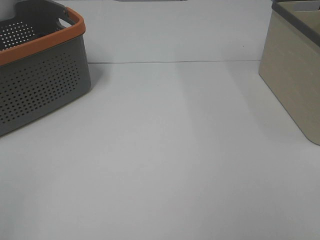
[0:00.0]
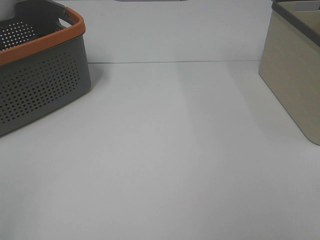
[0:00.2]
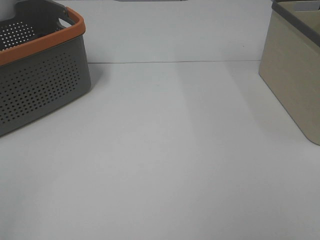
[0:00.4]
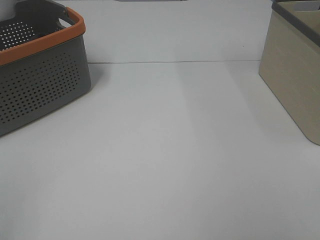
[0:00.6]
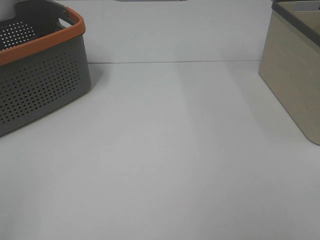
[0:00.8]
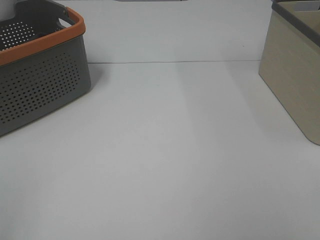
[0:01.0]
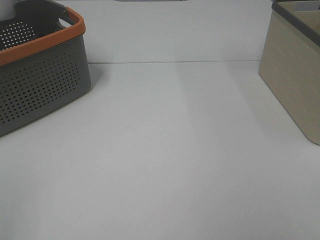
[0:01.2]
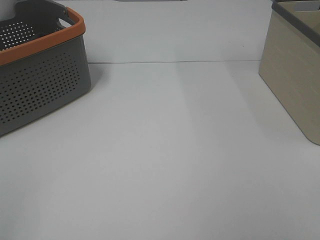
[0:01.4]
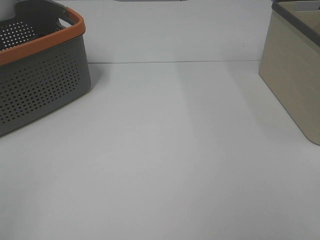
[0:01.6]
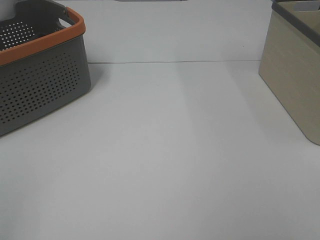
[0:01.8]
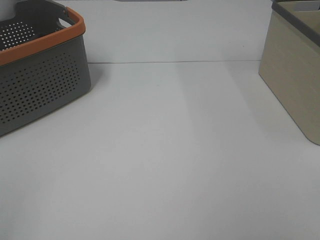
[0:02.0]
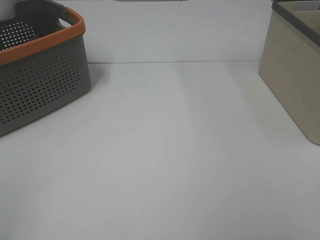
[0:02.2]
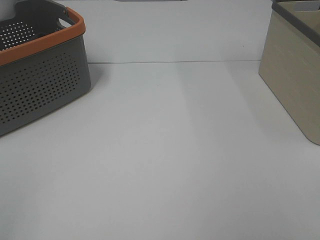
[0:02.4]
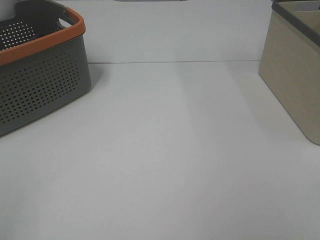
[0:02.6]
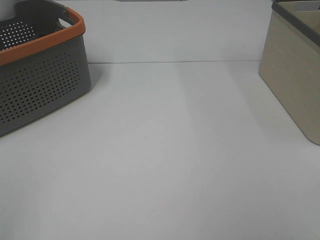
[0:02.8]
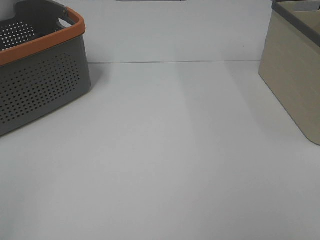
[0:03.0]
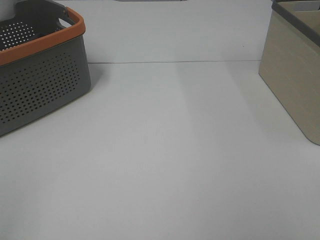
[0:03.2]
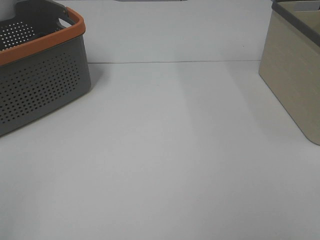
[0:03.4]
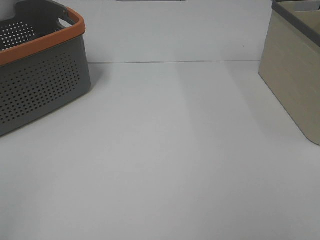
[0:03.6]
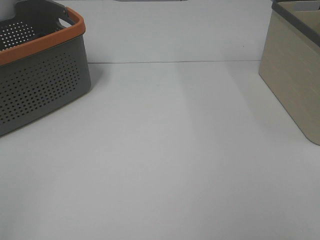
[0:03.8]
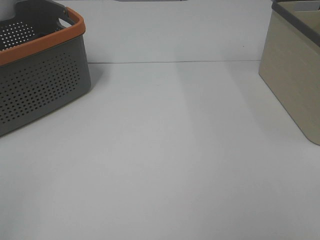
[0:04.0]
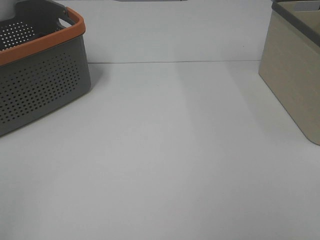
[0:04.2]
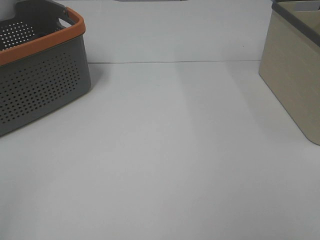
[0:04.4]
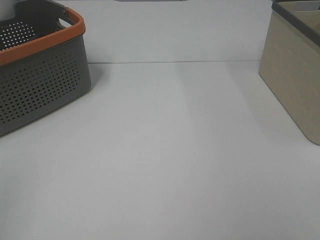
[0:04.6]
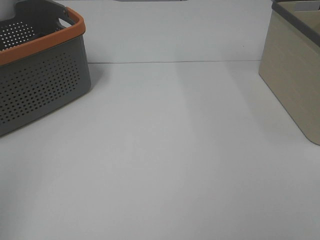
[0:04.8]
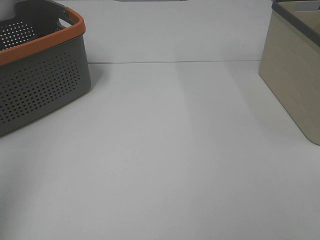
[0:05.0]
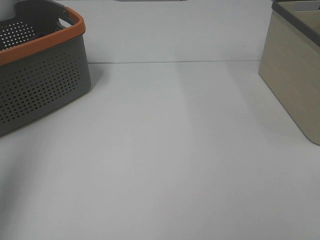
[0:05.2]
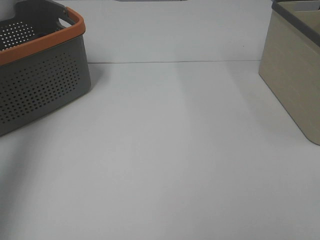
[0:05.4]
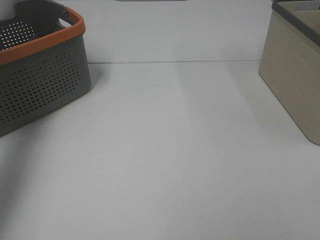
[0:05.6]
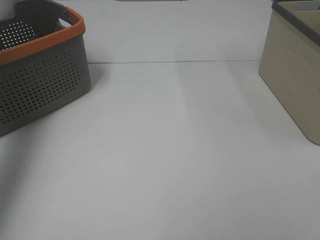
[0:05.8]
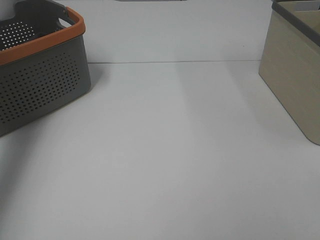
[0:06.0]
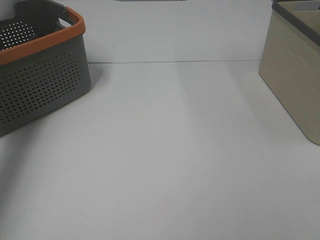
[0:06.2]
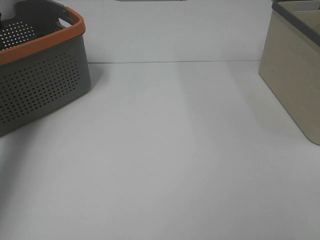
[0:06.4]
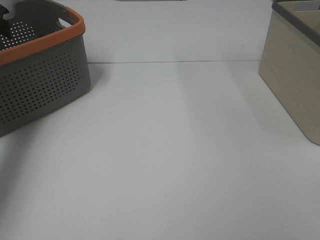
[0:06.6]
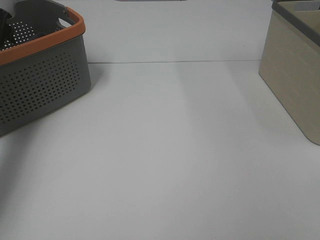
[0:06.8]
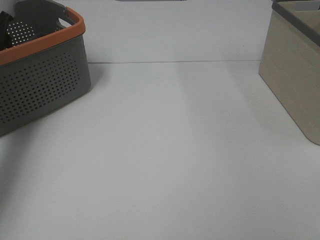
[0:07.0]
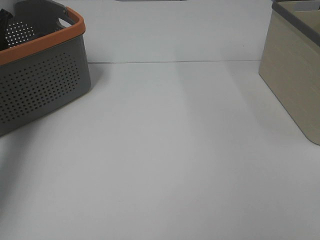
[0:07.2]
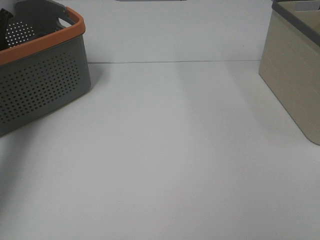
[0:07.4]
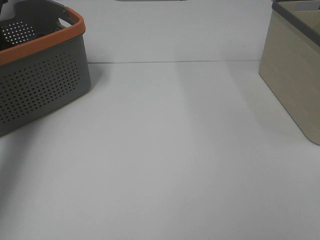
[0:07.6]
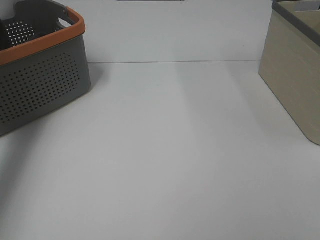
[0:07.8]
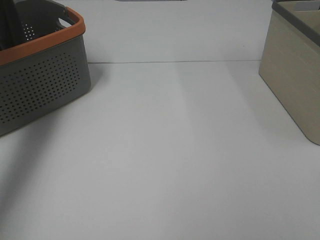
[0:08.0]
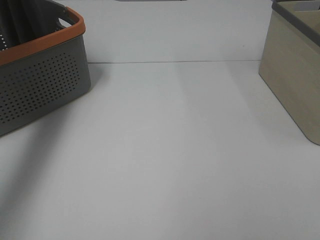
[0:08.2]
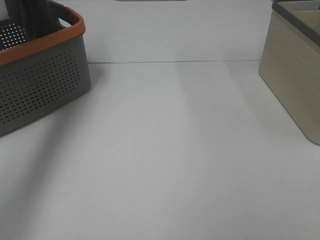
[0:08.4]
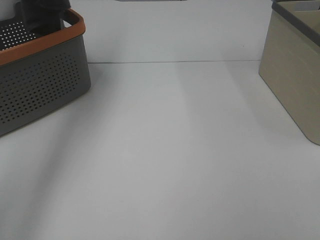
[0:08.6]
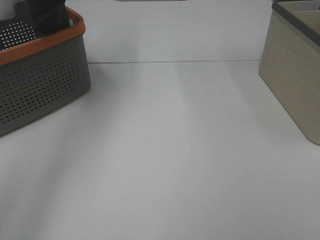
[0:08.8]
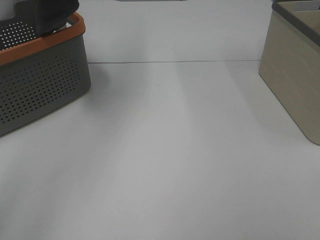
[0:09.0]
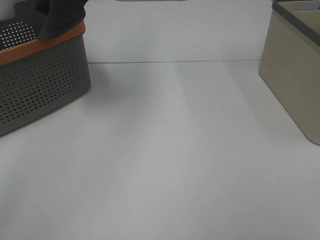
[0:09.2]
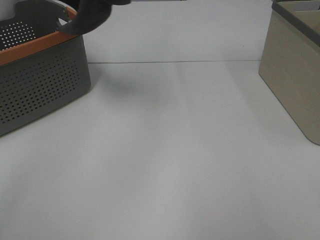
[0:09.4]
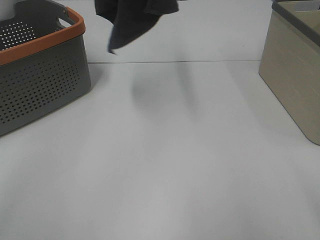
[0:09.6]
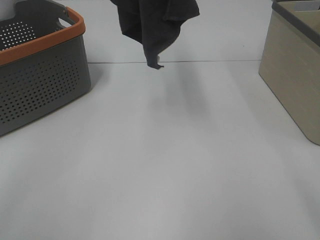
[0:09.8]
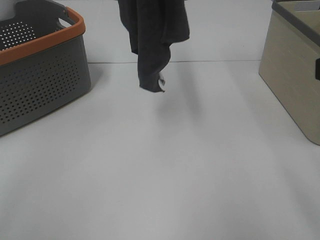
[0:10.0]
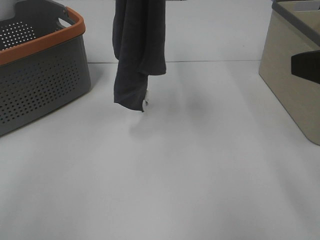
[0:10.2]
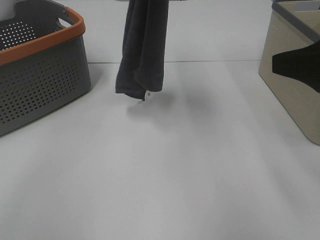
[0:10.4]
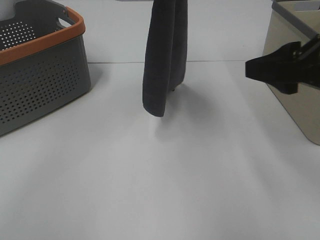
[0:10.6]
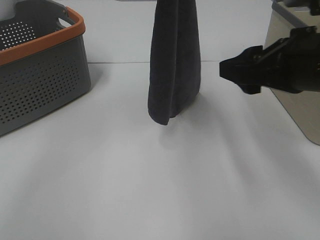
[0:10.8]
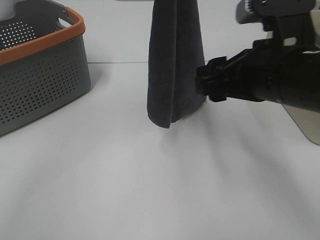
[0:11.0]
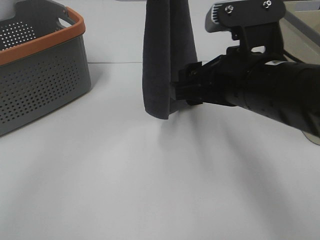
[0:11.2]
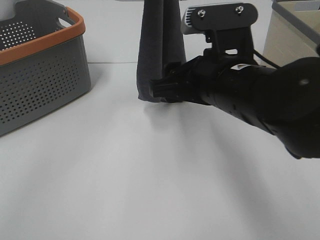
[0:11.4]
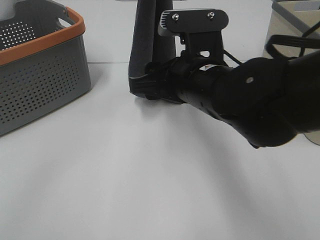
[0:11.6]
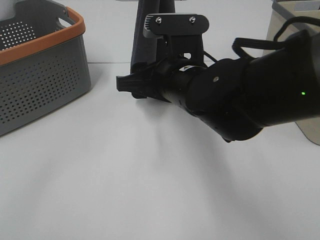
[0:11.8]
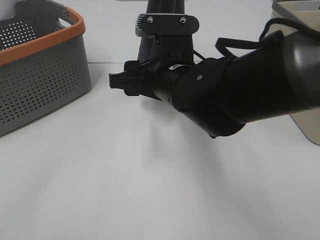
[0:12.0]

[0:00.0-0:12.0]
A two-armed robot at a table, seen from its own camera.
Task of the whole recording: Remove the towel and place it.
0:00.0 to 0:03.0: Both grippers stay about where they are.
0:04.4 to 0:06.0: The left gripper heads forward, covering roughly 40 cm.
0:07.6 to 0:09.0: The left gripper heads upward and to the right, covering approximately 40 cm.
0:09.0 to 0:10.4: The right gripper is displaced forward by some 20 cm. Meanwhile the left gripper shifts roughly 15 cm to the right and downward.
0:10.4 to 0:12.0: The left gripper moves roughly 5 cm, while the right gripper travels to the left, downward and forward by roughly 25 cm.

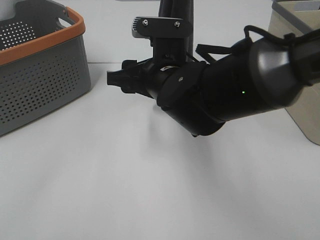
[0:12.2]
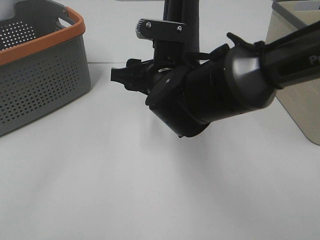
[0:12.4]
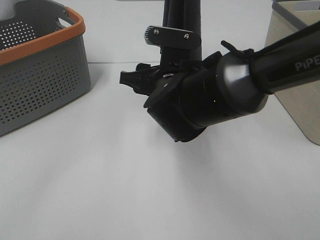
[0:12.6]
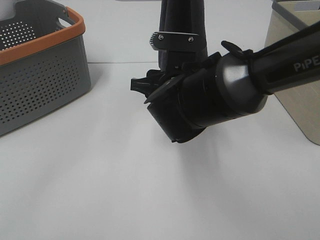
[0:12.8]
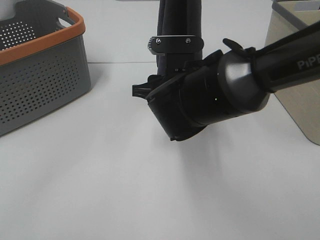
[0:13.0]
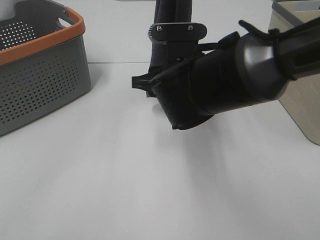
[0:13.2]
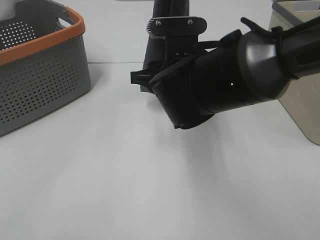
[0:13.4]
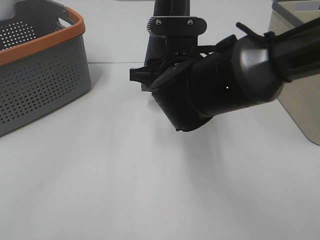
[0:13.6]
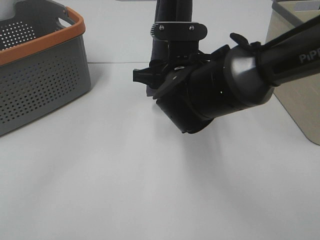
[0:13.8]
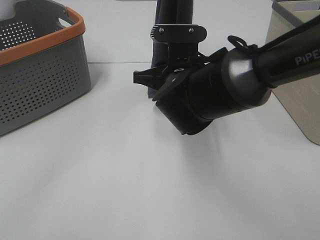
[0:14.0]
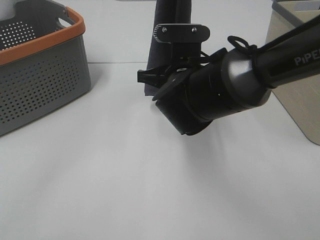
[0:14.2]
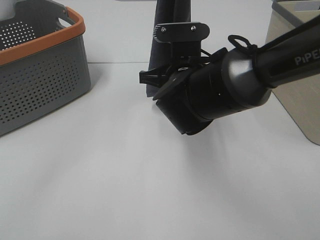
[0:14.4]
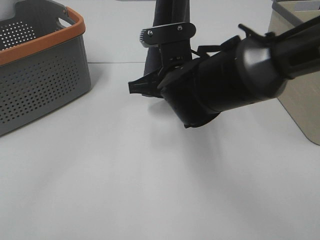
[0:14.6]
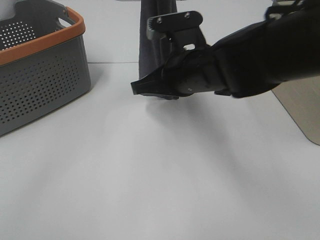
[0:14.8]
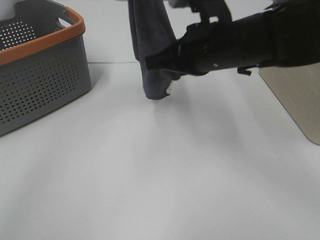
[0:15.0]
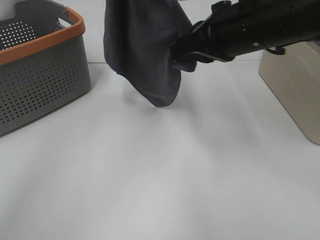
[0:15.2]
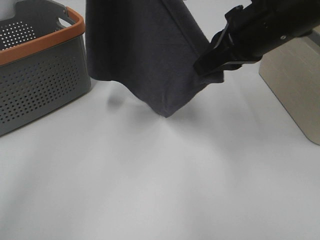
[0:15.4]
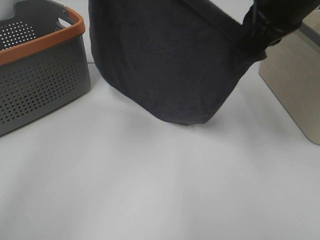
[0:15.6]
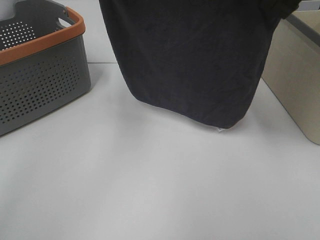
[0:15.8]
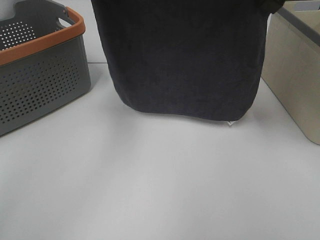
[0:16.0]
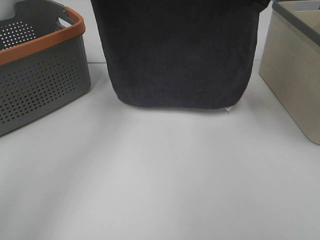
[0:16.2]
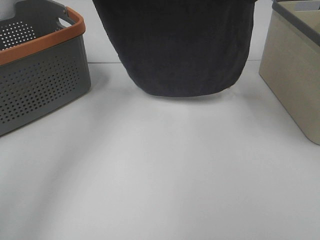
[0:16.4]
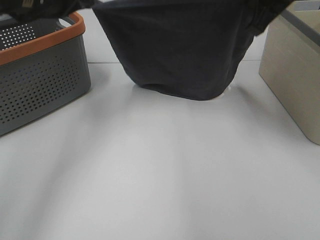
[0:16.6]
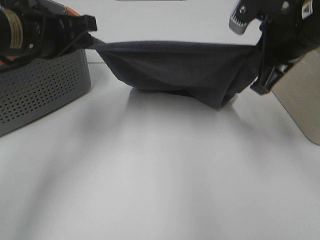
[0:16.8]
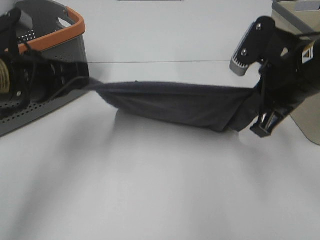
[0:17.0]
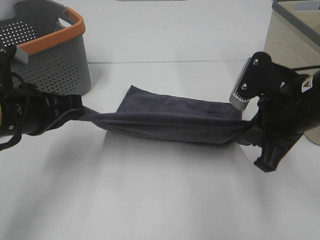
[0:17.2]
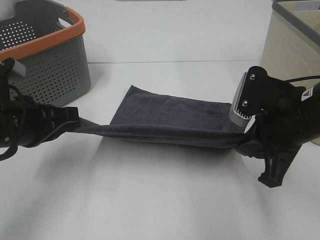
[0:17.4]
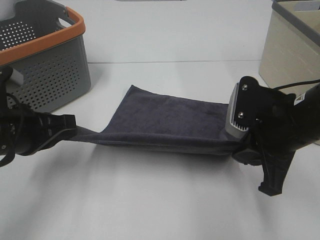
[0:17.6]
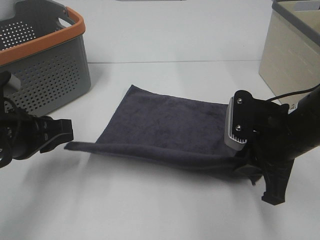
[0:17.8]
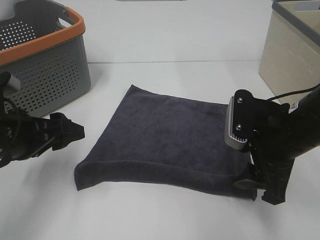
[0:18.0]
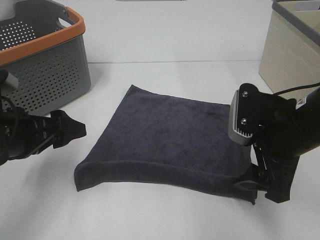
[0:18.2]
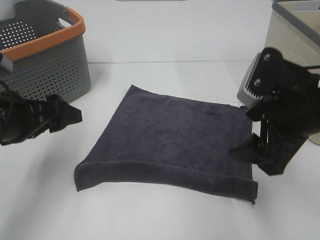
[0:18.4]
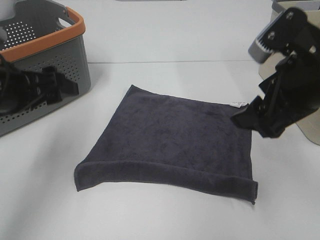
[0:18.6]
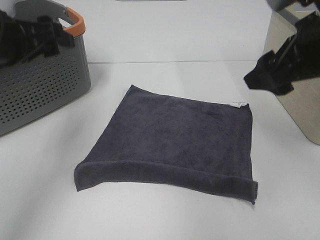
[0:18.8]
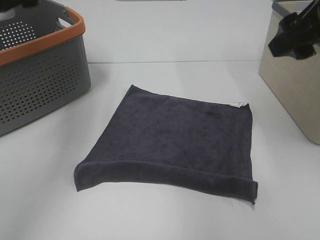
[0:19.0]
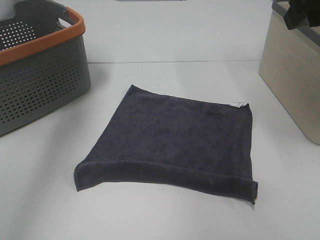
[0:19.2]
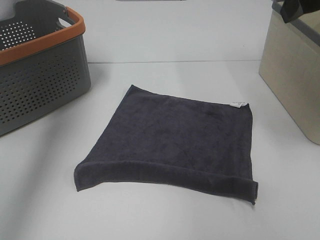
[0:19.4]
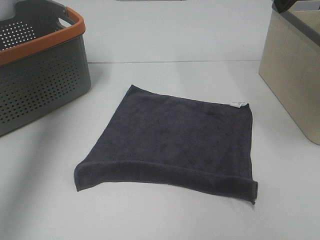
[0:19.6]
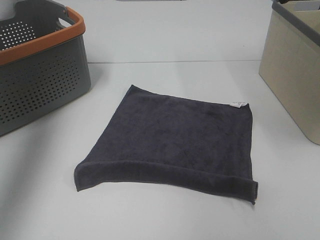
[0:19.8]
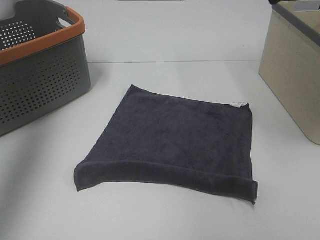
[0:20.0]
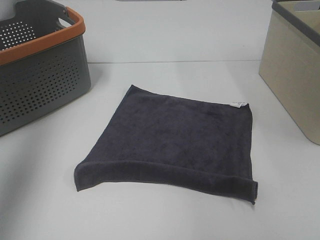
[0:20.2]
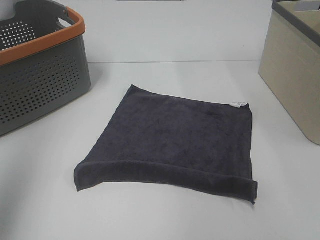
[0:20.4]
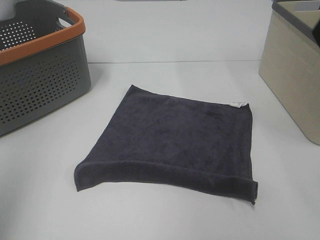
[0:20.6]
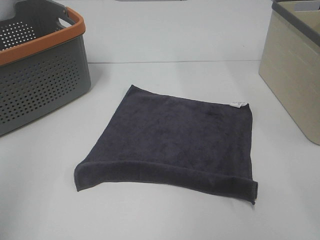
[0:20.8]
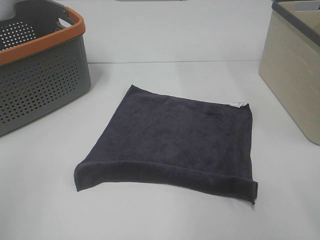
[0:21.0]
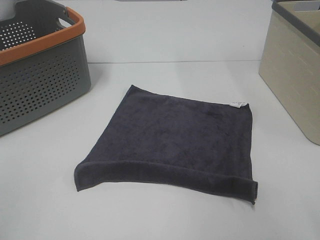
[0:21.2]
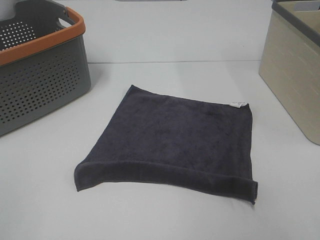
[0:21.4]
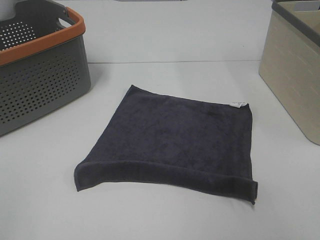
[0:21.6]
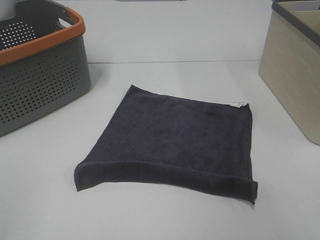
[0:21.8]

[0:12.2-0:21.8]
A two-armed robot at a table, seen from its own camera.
Task of the whole recording: Remove the towel and place it.
Step, 0:12.8 to 0:14.4: Right hand: spread the grey towel flat on the table.
0:13.8 to 0:15.4: The right gripper moves upward and to the right, roughly 15 cm, and closes. Meanwhile the left gripper moves to the left, about 10 cm.
0:15.4 to 0:17.0: The left gripper goes approximately 25 cm downward and backward. The right gripper shifts about 5 cm downward.
0:17.0 to 0:18.6: The right gripper moves roughly 5 cm downward and comes back, and opens. The left gripper opens up.
0:18.6 to 0:20.2: The left gripper is displaced upward and to the left by some 25 cm, while the right gripper shifts roughly 20 cm upward.
0:20.2 to 0:21.8: The left gripper is displaced backward and downward by some 25 cm.

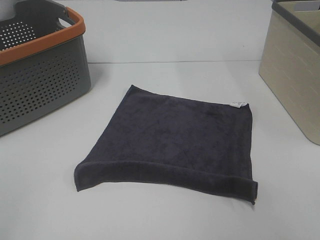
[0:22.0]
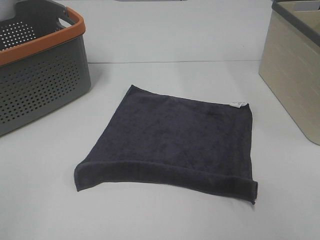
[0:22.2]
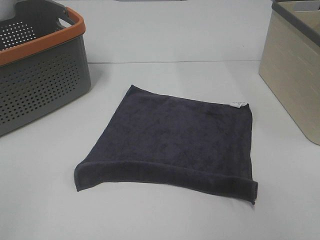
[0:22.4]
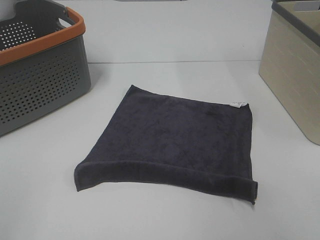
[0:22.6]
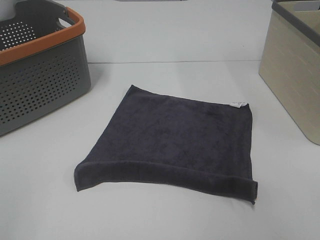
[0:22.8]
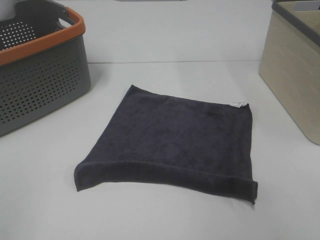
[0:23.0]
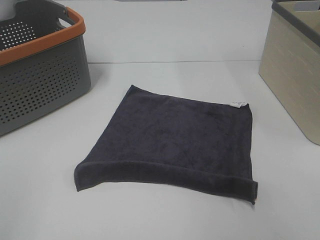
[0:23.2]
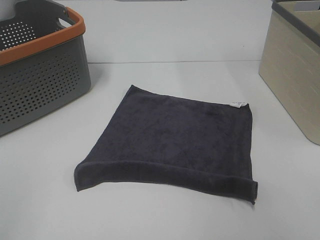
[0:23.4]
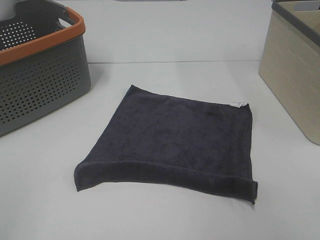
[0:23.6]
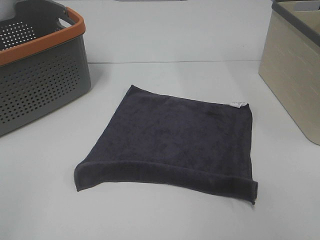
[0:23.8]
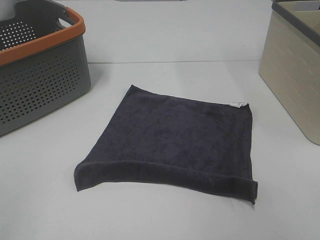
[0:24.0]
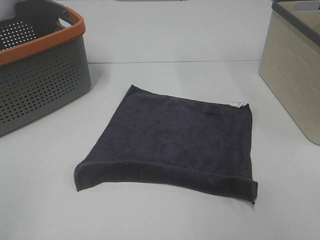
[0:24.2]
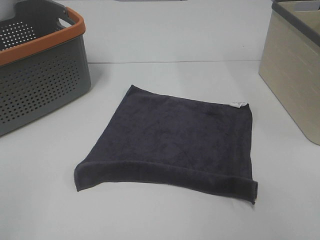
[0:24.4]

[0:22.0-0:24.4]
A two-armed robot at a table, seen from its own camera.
Task of the whole recording: Remove the towel and place it.
0:22.0 to 0:24.4: Neither gripper changes place.
